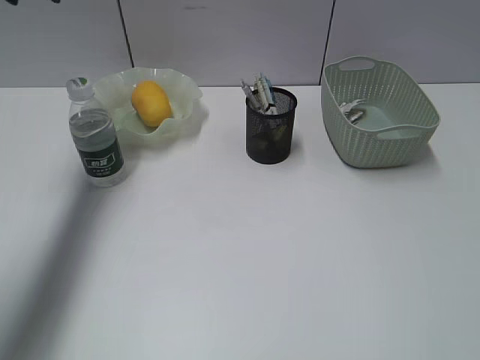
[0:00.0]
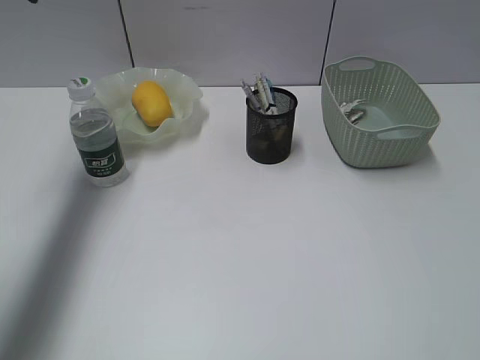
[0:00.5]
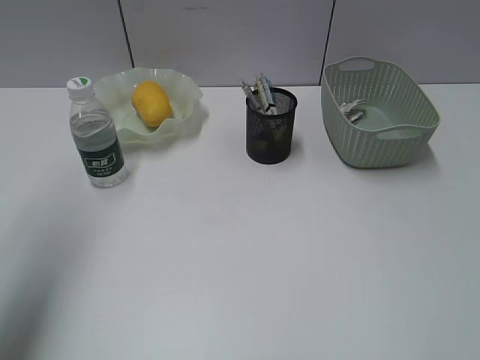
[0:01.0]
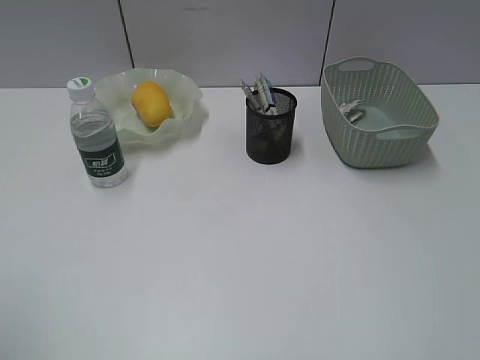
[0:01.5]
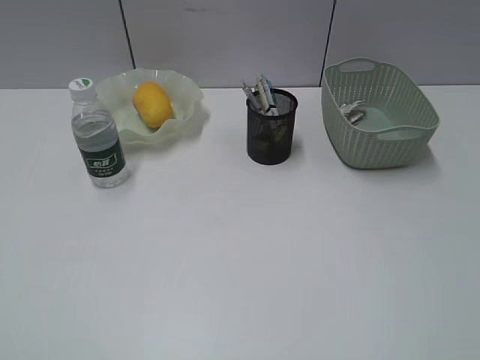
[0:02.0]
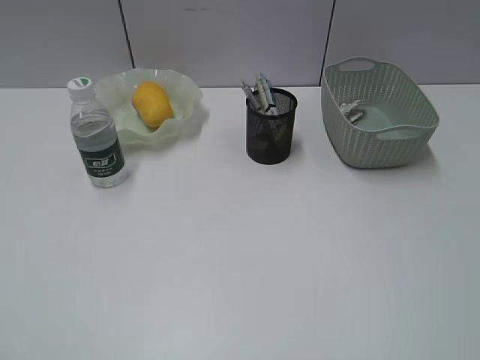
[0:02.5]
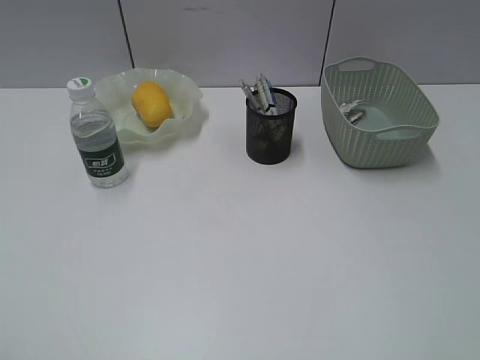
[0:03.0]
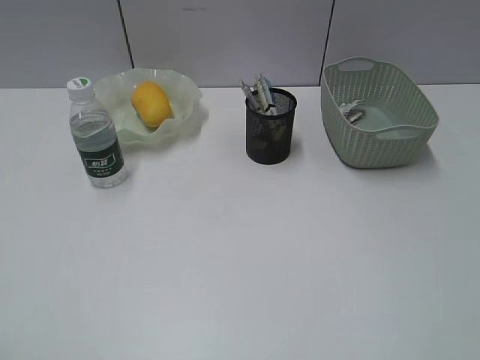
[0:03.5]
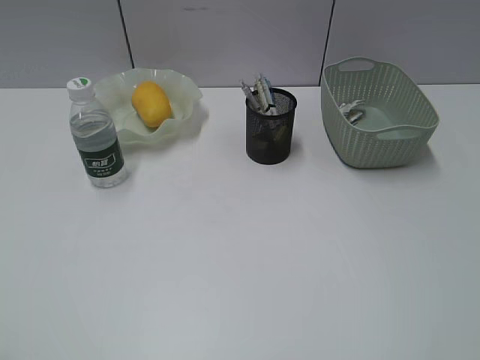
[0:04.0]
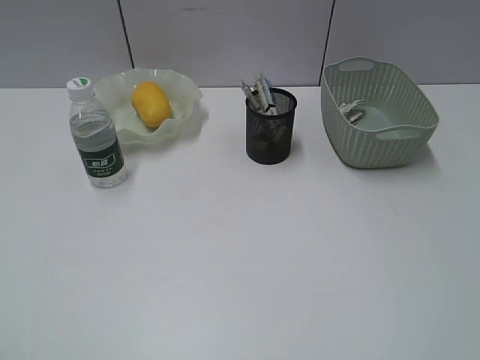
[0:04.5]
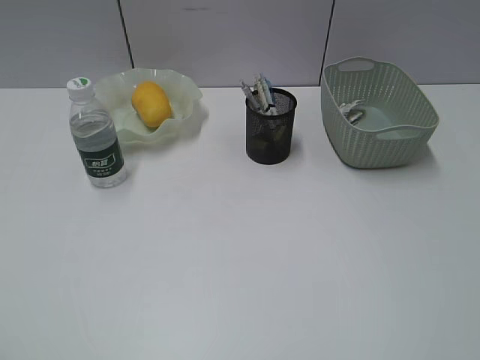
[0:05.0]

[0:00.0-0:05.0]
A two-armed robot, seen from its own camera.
0:00.0 to 0:02.5: The left gripper moves backward, approximately 50 cm.

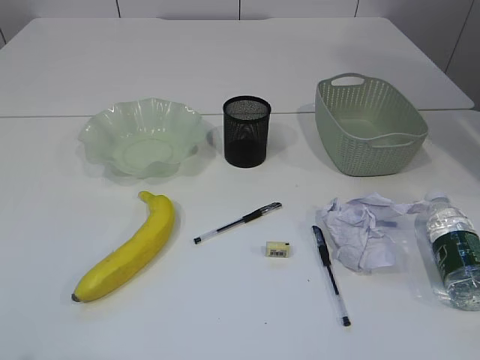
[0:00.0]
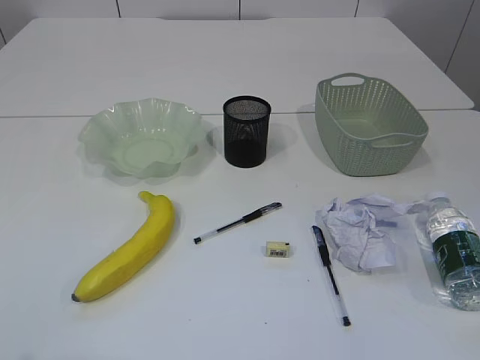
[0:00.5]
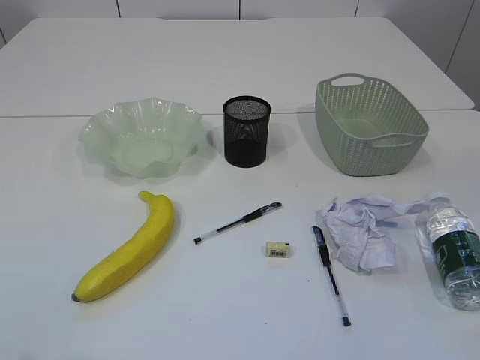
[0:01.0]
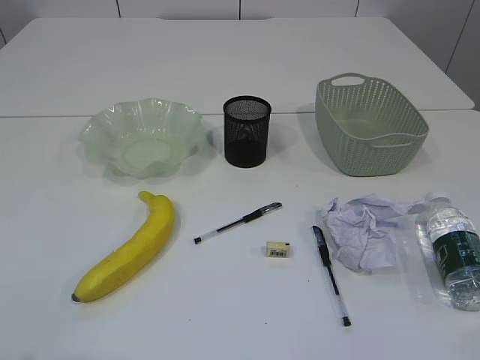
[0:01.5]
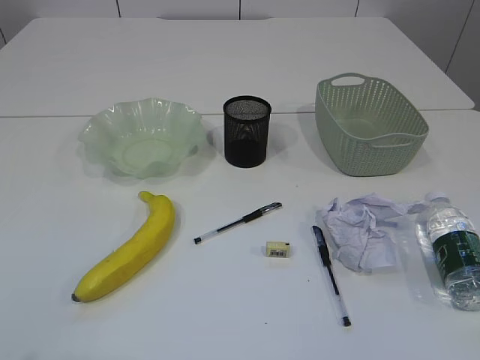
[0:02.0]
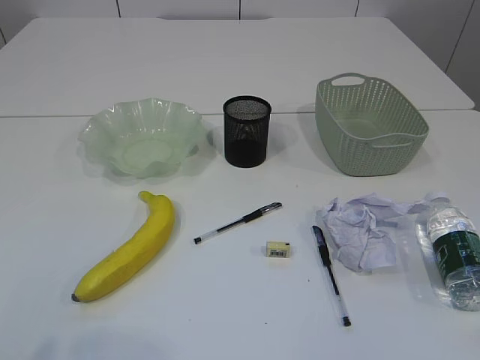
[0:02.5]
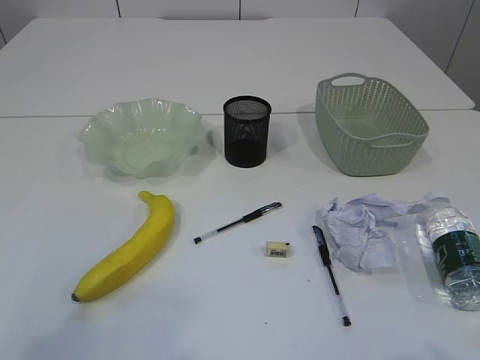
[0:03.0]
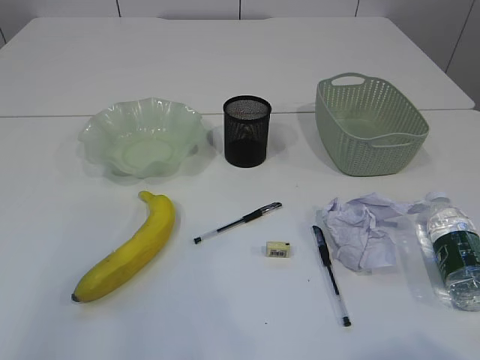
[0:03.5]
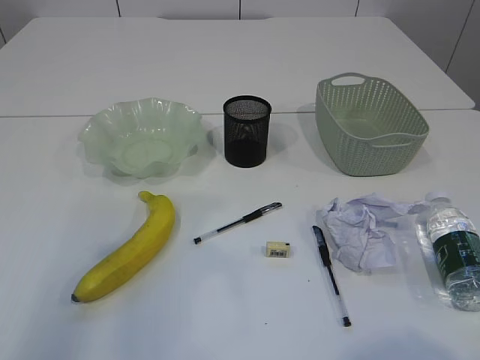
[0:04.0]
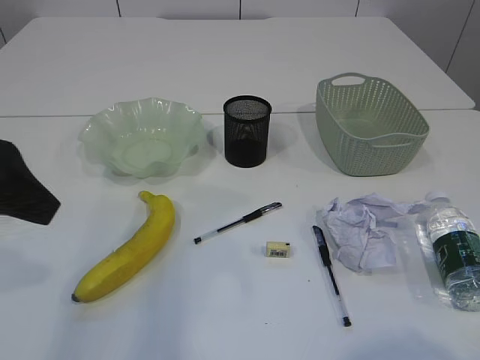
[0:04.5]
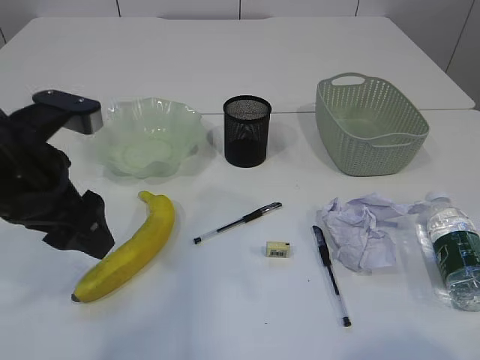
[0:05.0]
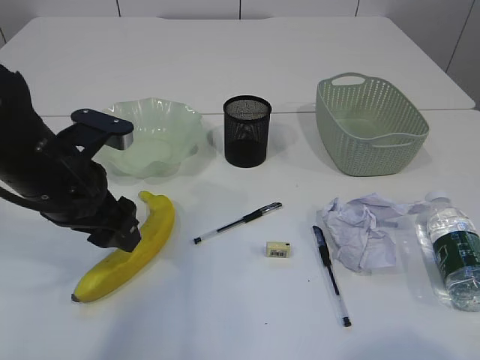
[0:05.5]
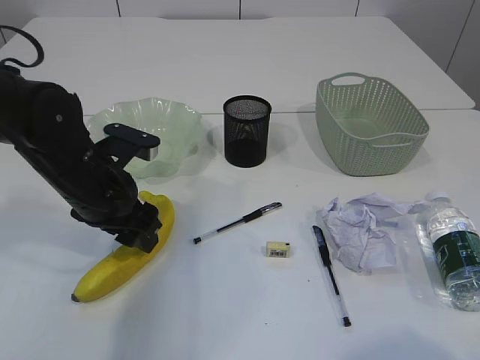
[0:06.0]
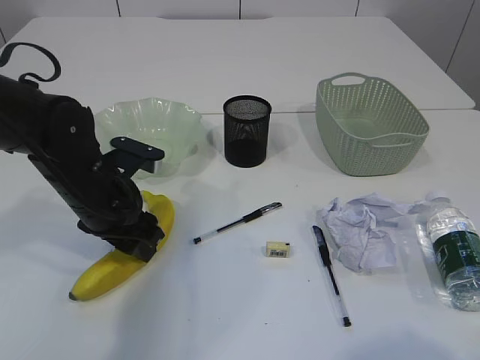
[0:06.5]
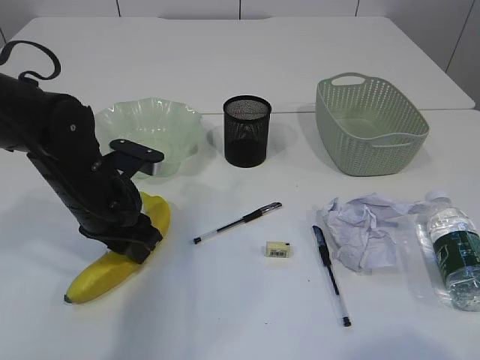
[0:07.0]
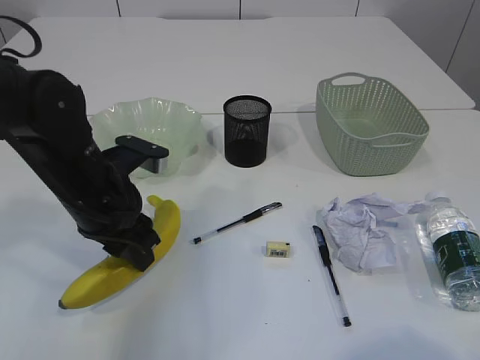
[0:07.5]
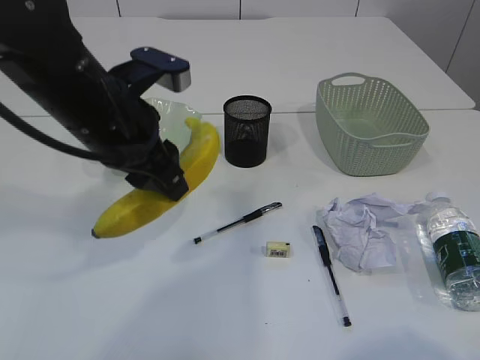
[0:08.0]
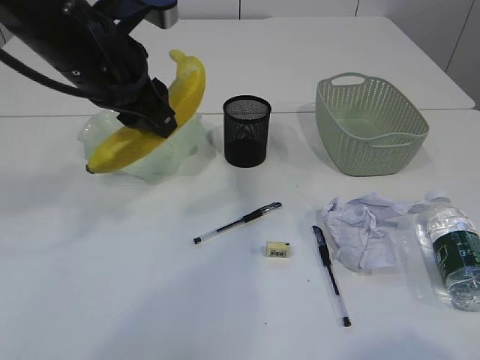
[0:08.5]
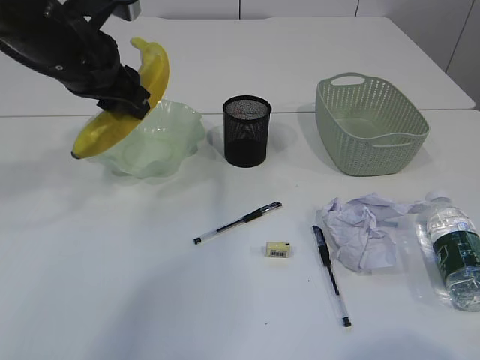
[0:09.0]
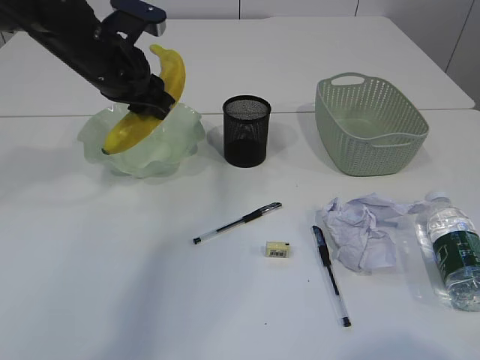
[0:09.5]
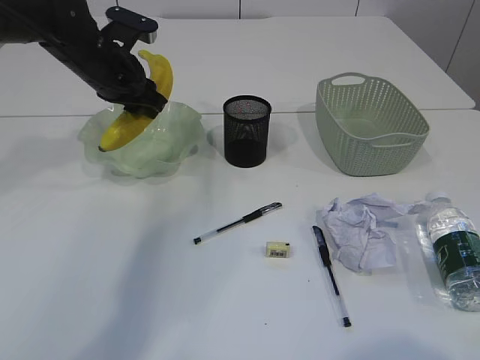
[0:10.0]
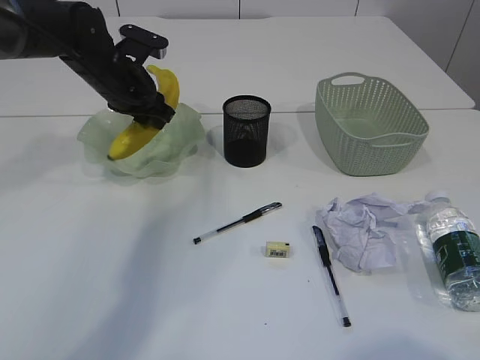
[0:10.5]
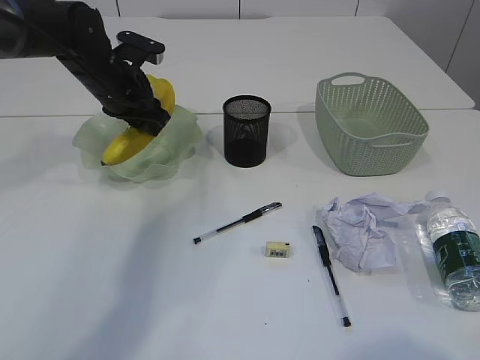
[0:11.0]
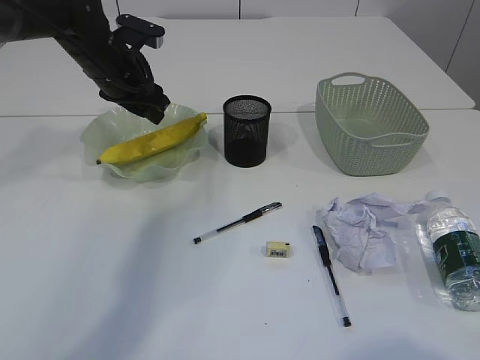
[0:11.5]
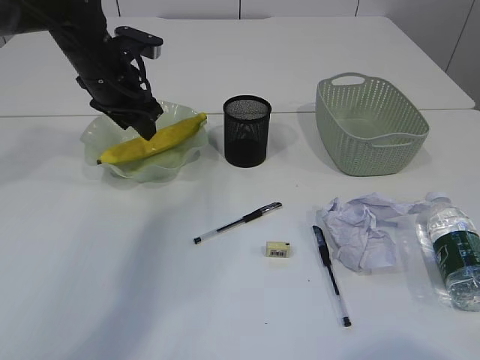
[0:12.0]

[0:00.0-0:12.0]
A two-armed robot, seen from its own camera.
0:02.0 to 0:04.0: The left gripper travels forward by some 20 cm.
0:04.0 to 0:06.0: The left gripper heads downward, forward and to the right, covering roughly 25 cm.
0:06.0 to 0:08.0: The left gripper is displaced upward by roughly 10 cm, and closes.
0:08.0 to 0:10.0: The left gripper goes approximately 15 cm forward.
0:10.0 to 0:12.0: The grippers move only a little.

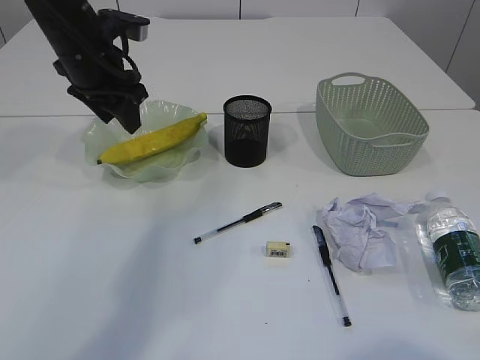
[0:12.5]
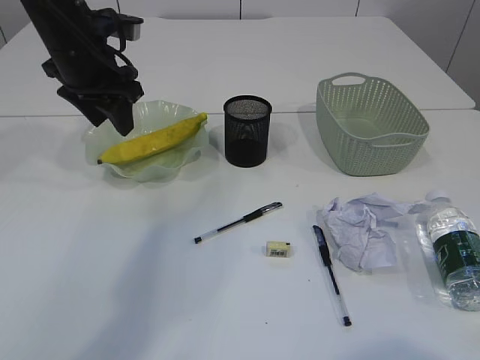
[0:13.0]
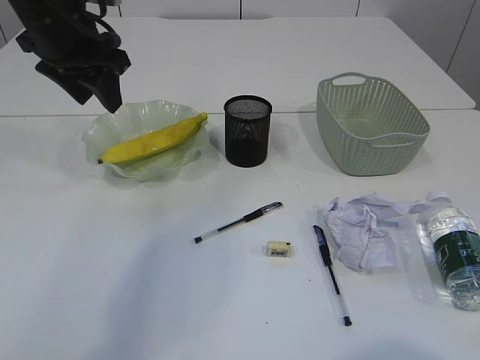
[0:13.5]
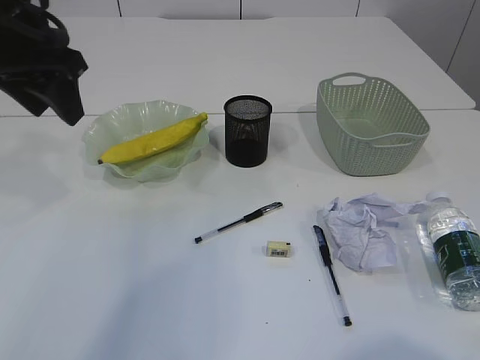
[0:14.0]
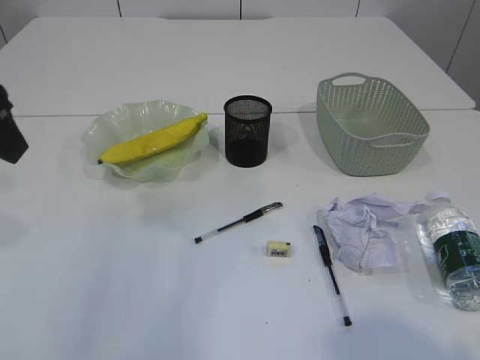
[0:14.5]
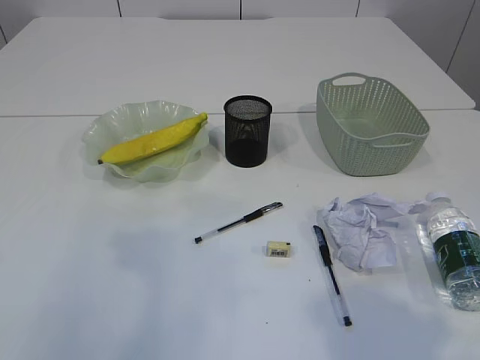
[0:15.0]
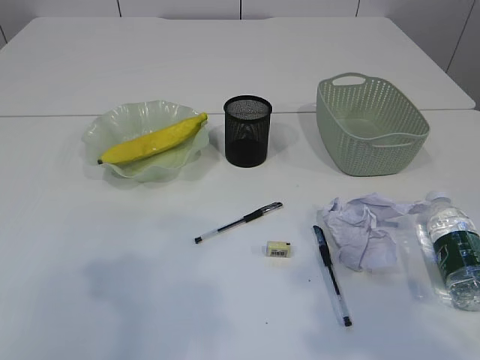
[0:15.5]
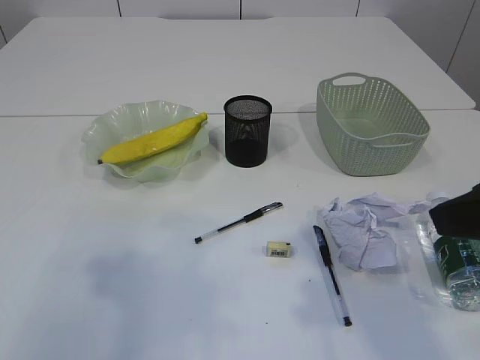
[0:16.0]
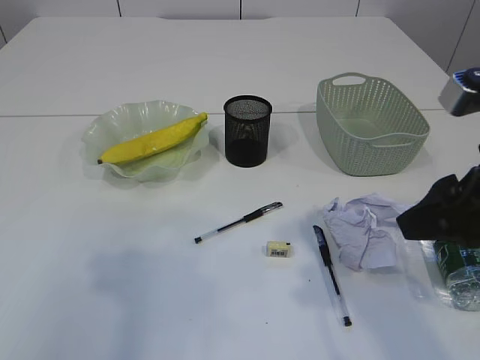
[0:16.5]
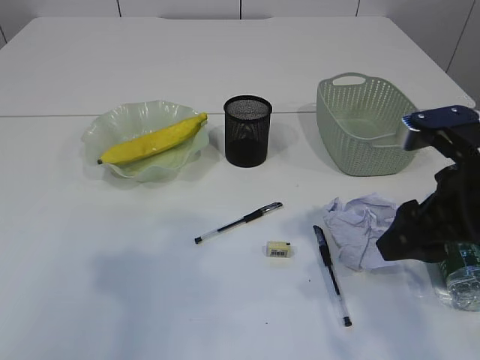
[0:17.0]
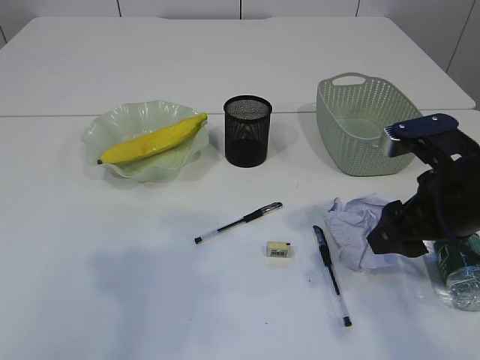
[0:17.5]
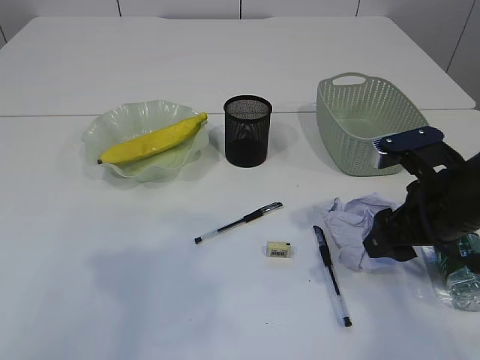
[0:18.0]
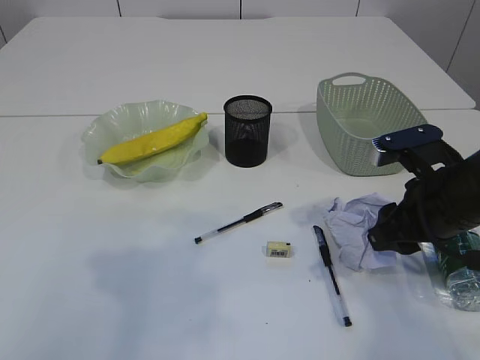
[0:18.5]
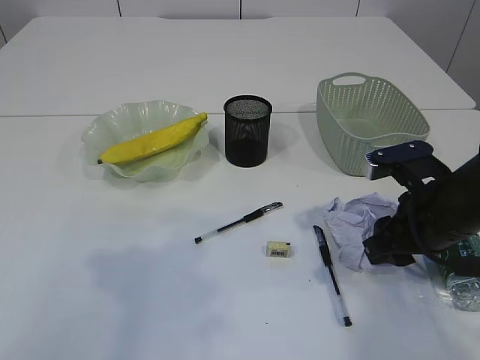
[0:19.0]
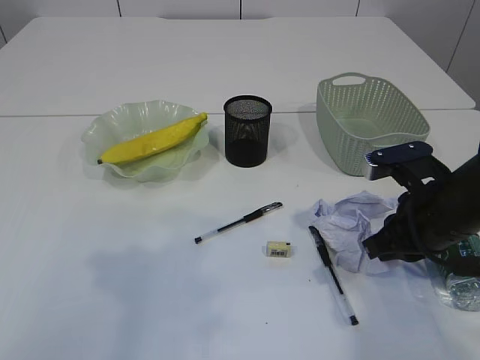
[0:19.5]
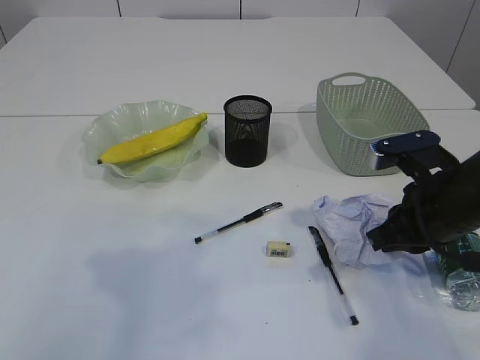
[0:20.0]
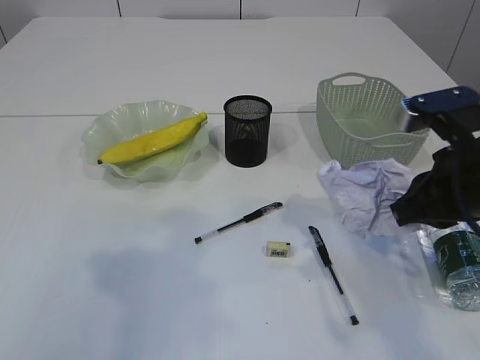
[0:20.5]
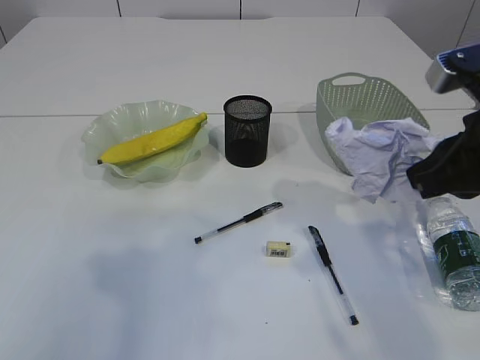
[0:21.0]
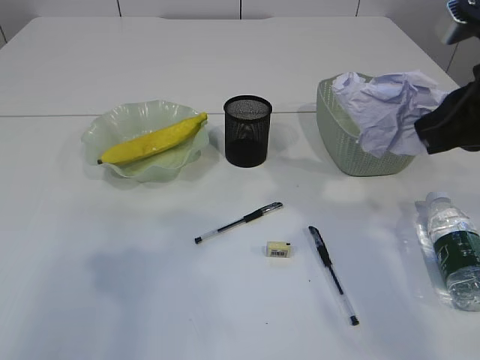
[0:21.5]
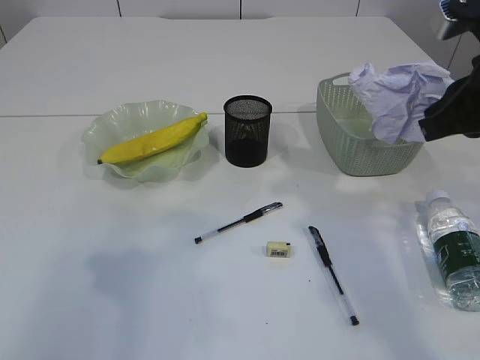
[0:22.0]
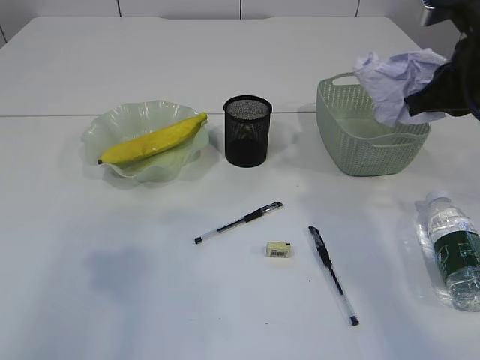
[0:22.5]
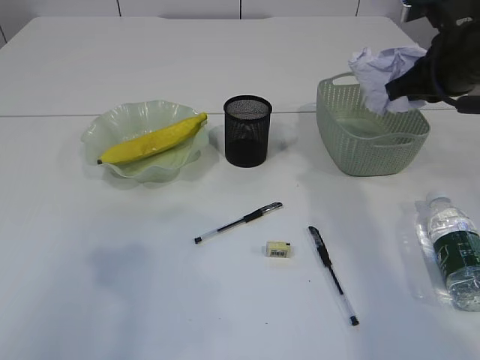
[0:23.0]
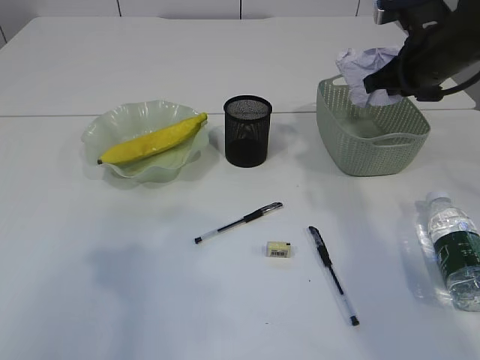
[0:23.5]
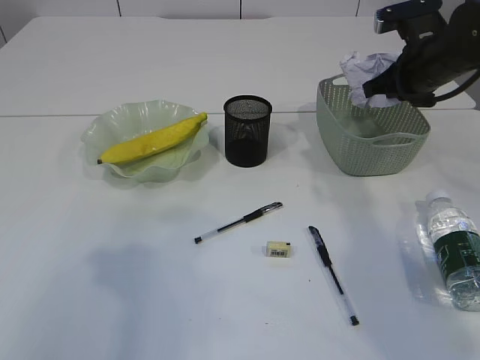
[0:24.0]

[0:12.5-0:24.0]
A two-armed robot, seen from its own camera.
Step, 0:14.0 to 0:20.5: Pick up the waste paper.
0:12.5 to 0:14.5: The left gripper travels backward and upward by approximately 20 cm.
0:14.5 to 0:16.5: The left gripper travels backward by roughly 10 cm; the right gripper is displaced forward and downward by roughly 20 cm.
0:16.5 to 0:18.5: The right gripper heads downward and forward, covering roughly 10 cm.
0:18.5 to 0:20.0: The right gripper closes its fingers.
0:20.0 to 0:22.0: The right gripper shifts about 15 cm upward.
0:22.0 to 0:24.0: The right gripper goes approximately 20 cm forward.
